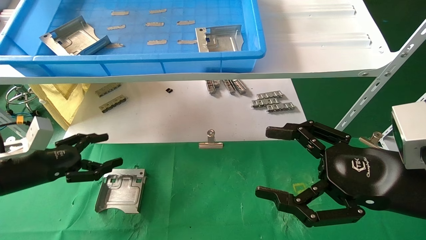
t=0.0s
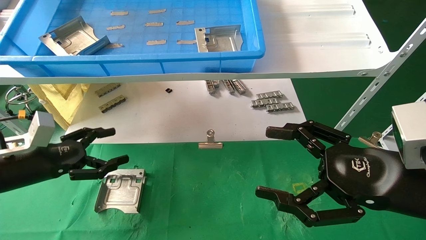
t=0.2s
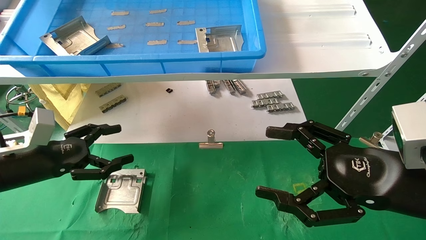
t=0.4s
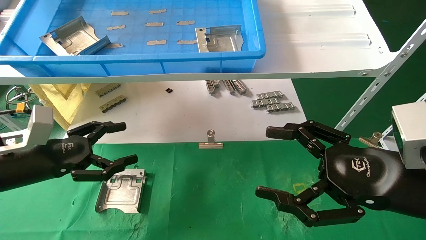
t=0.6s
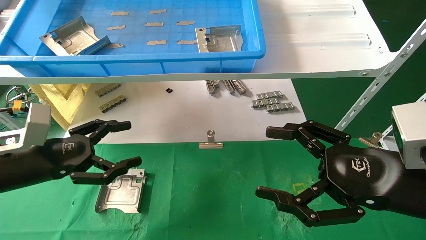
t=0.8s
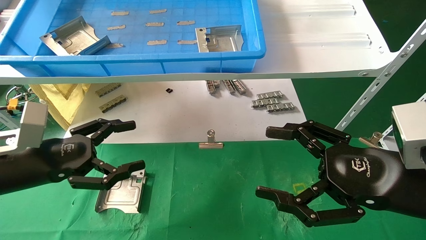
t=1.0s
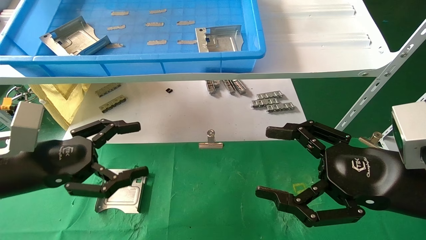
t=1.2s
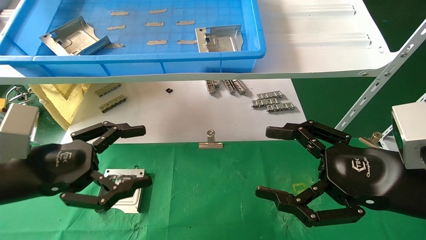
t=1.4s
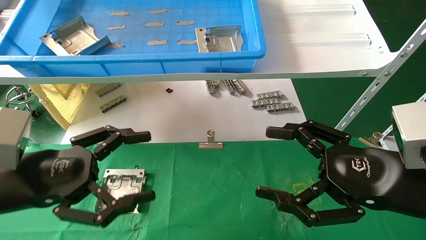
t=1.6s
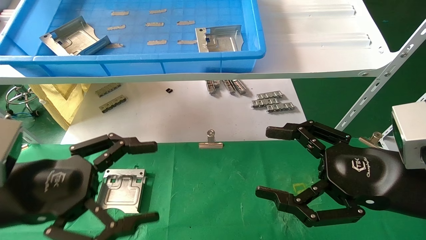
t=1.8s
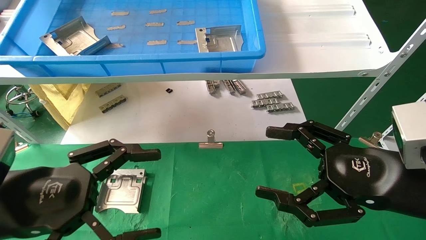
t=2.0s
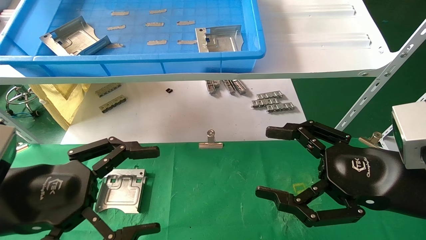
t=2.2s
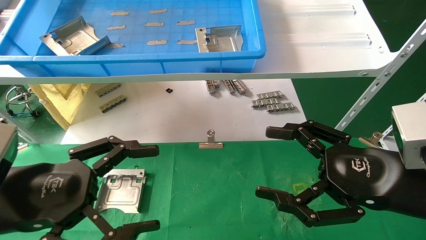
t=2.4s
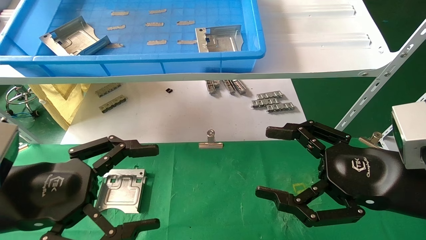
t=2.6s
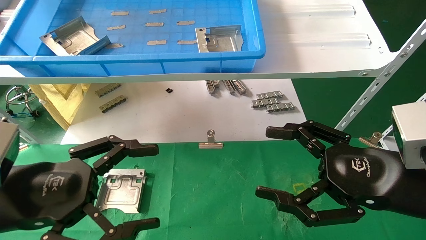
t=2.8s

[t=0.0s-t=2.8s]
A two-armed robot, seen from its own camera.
Task of the whole recording: use the mechanical arm to pick up the parts and place them on the table.
t=0.0s to t=1.4s: The left gripper goes approximately 10 cm backward and to the right.
t=1.4s to t=2.8s: The left gripper changes place by approximately 5 cm.
